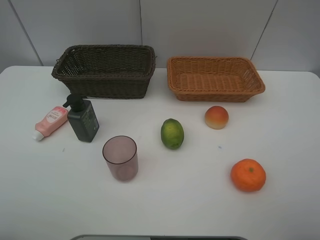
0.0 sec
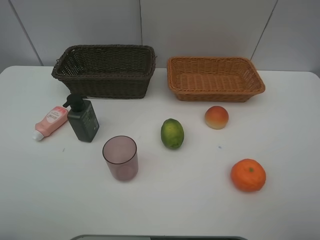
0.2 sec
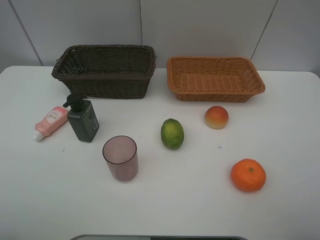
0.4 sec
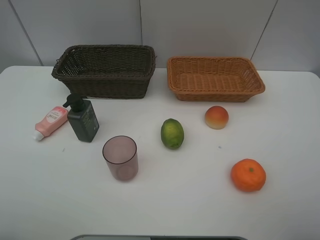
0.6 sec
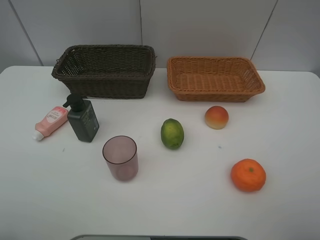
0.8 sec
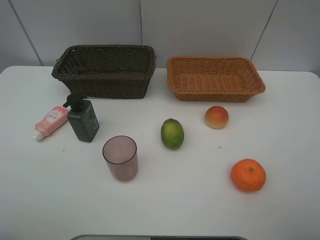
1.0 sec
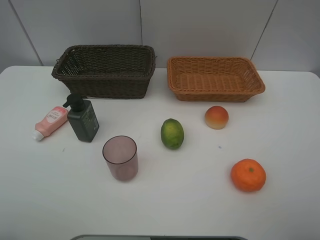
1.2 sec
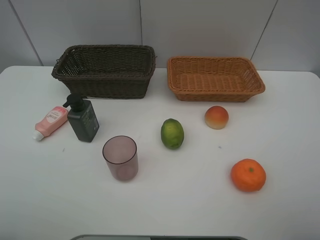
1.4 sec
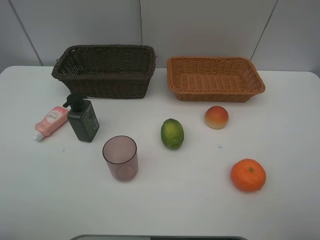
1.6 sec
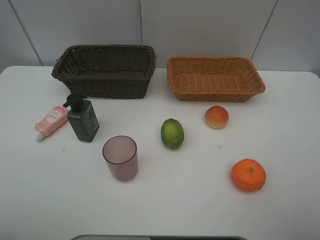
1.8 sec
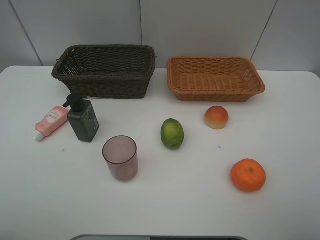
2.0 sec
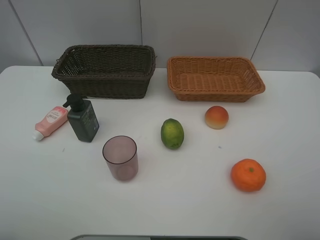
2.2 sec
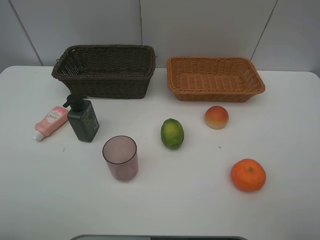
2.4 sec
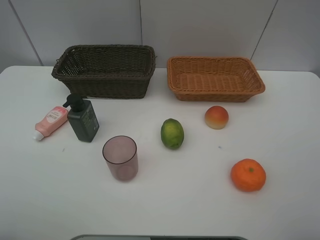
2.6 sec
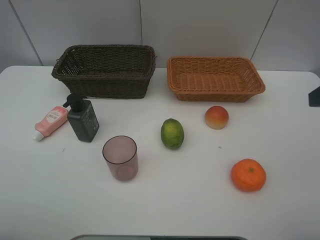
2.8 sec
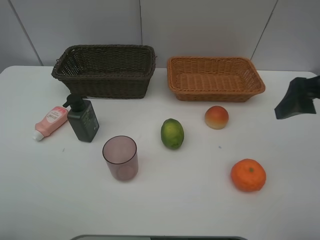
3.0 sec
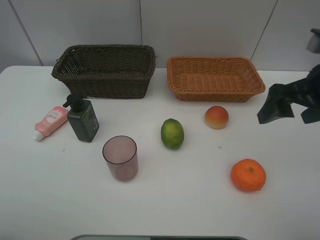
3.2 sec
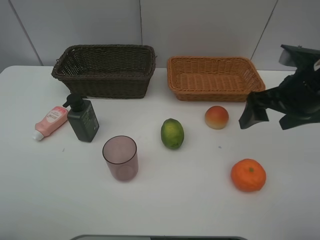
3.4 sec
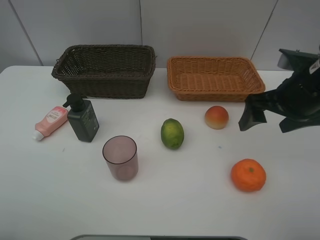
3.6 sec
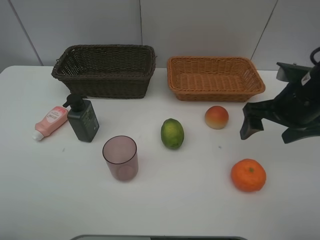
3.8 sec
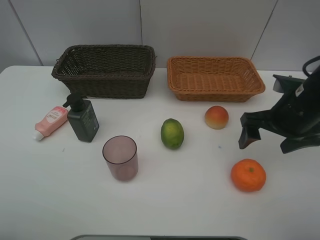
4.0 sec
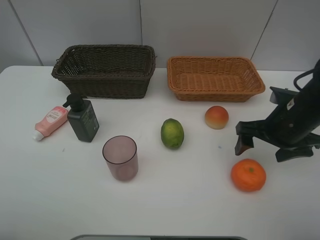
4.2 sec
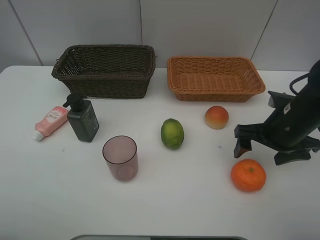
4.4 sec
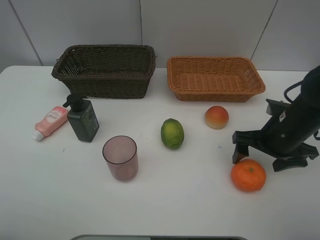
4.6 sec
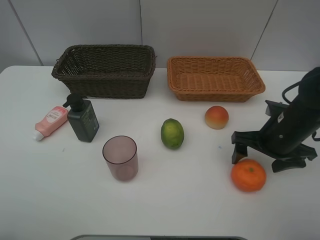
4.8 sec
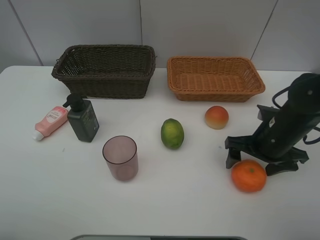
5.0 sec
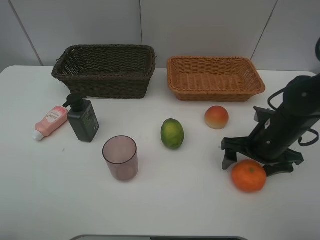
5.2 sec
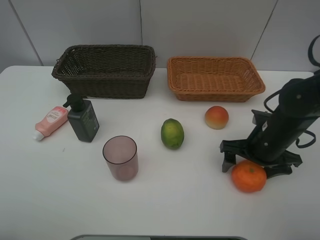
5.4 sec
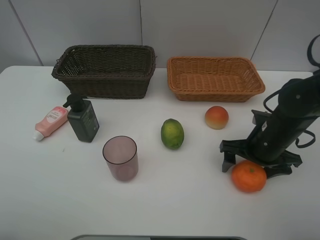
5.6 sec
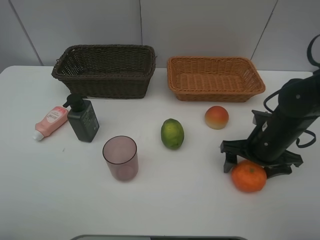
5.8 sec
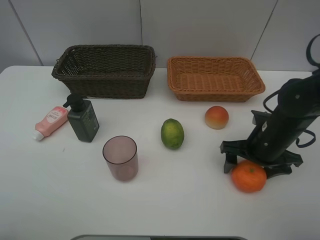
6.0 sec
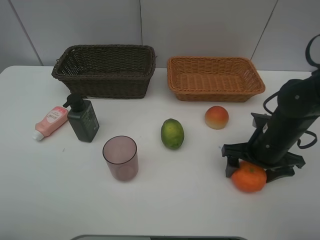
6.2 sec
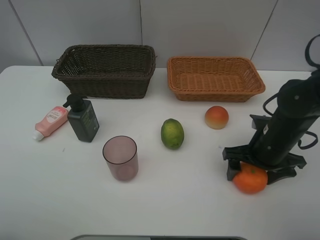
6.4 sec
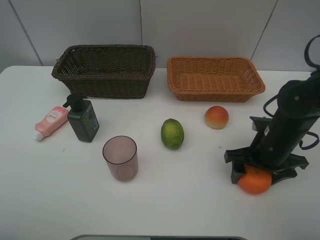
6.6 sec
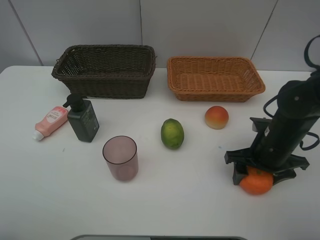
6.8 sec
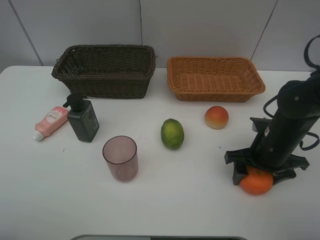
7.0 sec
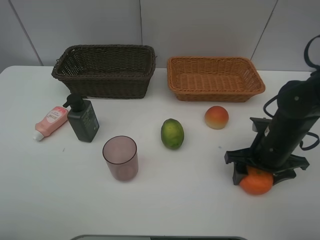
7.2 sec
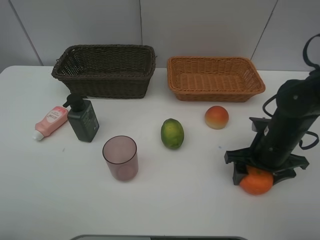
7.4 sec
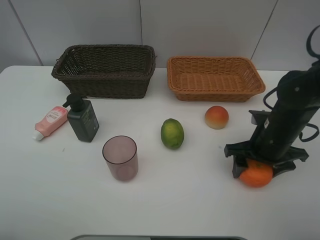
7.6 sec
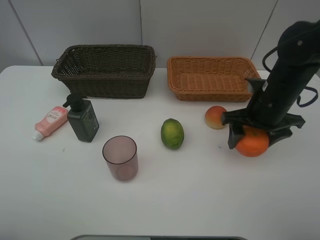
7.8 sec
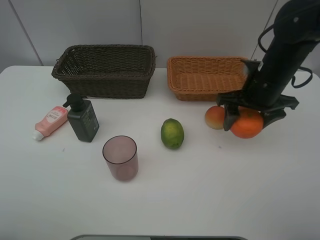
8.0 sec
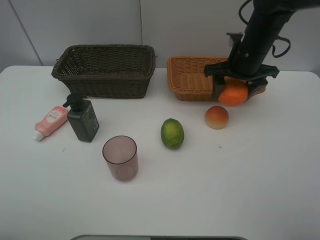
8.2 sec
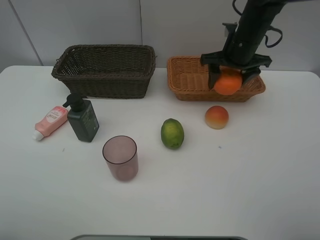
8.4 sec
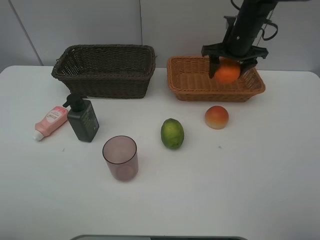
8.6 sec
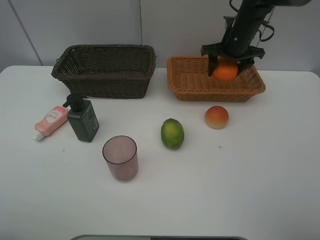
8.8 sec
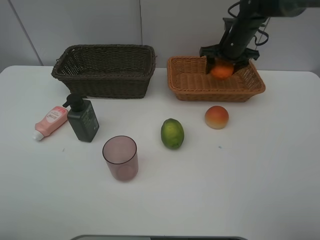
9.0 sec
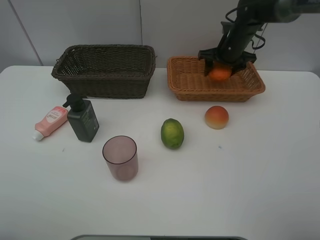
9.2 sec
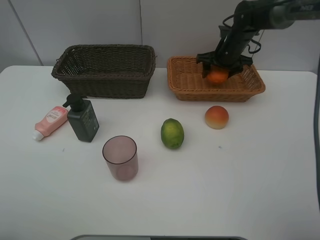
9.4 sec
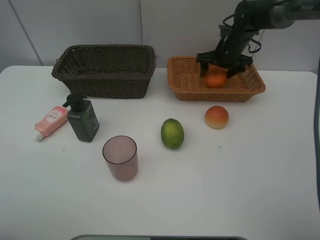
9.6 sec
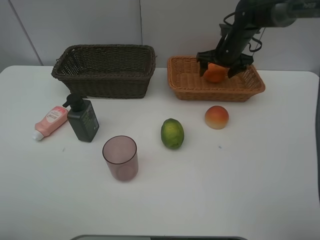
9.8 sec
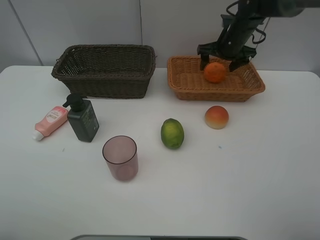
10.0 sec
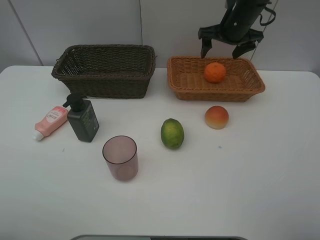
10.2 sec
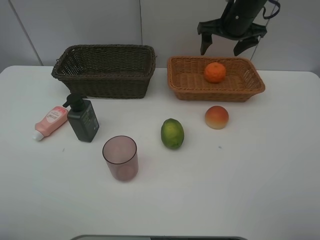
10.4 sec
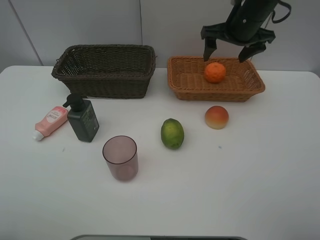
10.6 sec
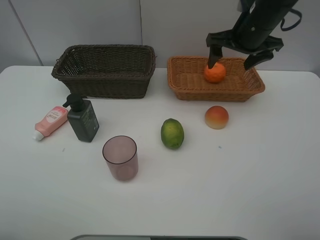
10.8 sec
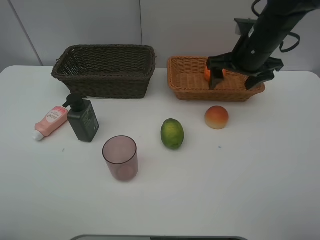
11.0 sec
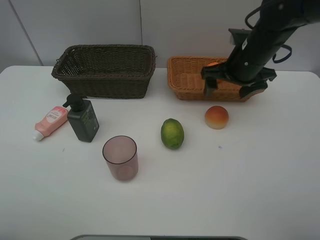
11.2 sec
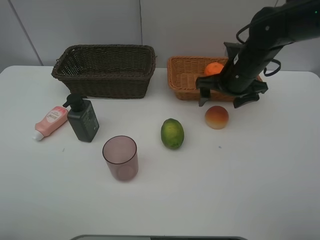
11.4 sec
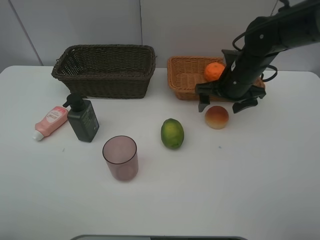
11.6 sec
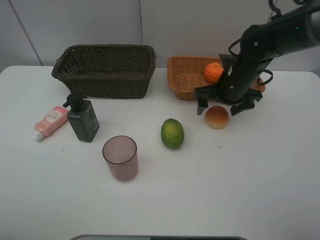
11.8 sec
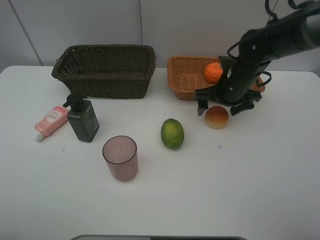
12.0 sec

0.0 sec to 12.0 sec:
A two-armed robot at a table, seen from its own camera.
Task of the whole recording: place multiple objects separately in different baskets.
0.0 sec to 1.6 sec: Neither gripper changes place.
1.6 sec to 3.0 sec: The right gripper is displaced forward by roughly 20 cm.
3.0 sec to 4.4 sec: The right gripper is displaced downward by about 15 cm.
4.4 sec to 6.0 sec: The grippers stay close to where they were, moving slightly.
6.0 sec to 7.6 sec: The right gripper closes its fingers.
7.6 sec to 9.0 sec: The right gripper goes roughly 25 cm forward.
9.0 sec to 10.4 sec: The right gripper moves upward, some 10 cm, and opens its fingers.
10.4 sec to 12.0 sec: The right gripper goes approximately 15 cm downward and backward.

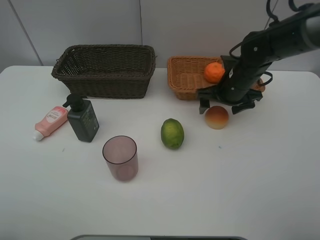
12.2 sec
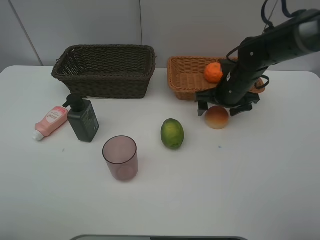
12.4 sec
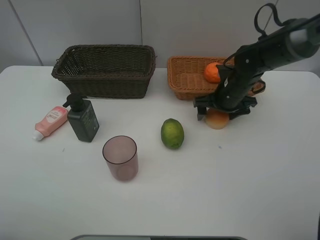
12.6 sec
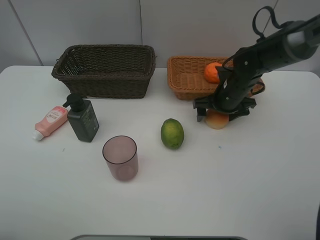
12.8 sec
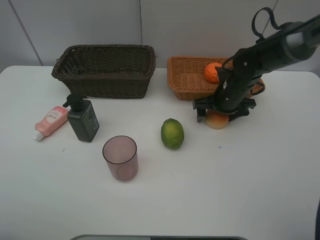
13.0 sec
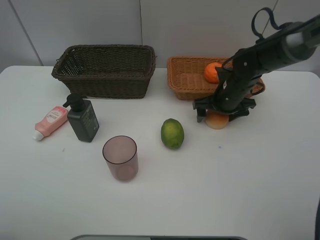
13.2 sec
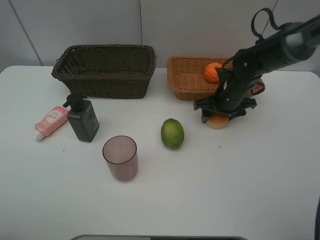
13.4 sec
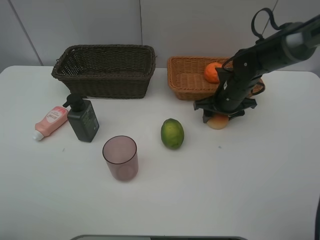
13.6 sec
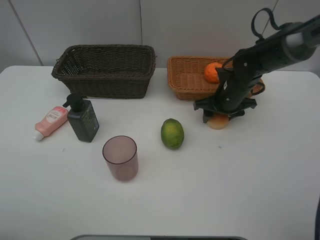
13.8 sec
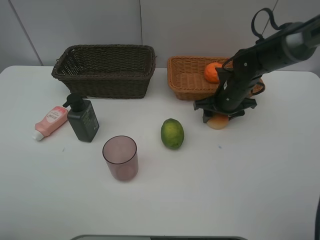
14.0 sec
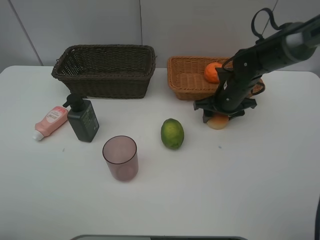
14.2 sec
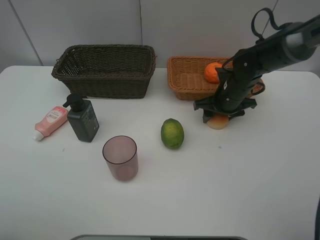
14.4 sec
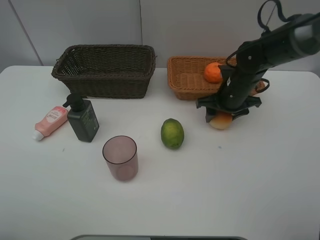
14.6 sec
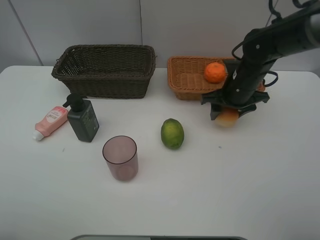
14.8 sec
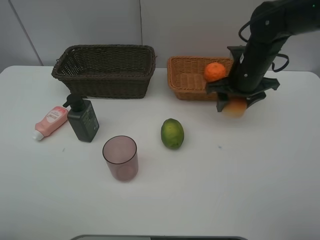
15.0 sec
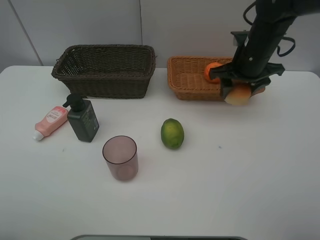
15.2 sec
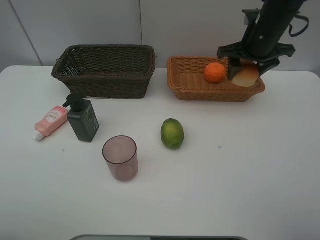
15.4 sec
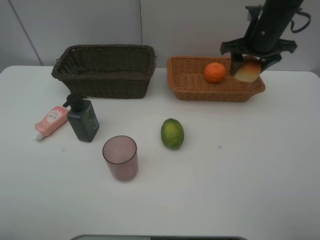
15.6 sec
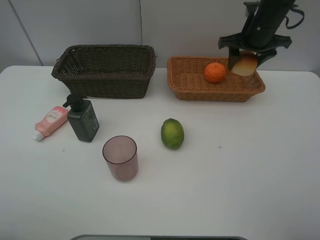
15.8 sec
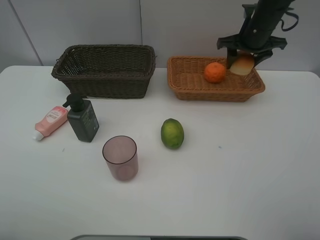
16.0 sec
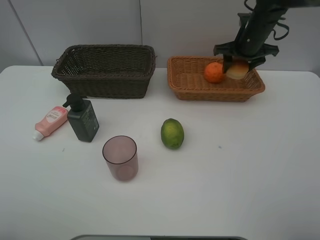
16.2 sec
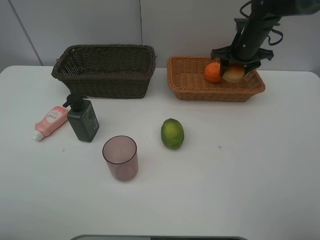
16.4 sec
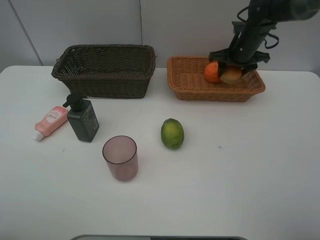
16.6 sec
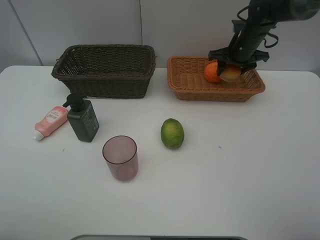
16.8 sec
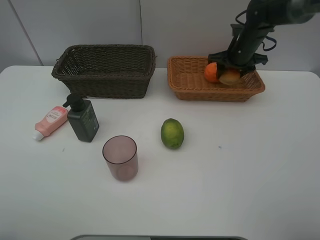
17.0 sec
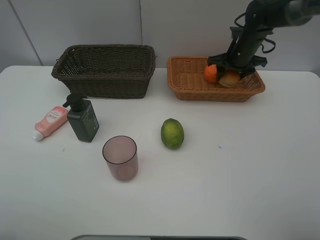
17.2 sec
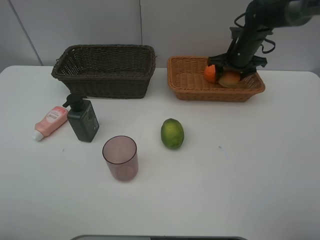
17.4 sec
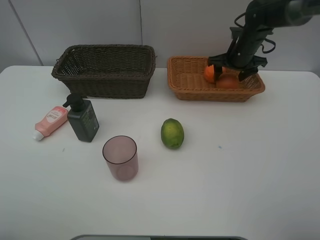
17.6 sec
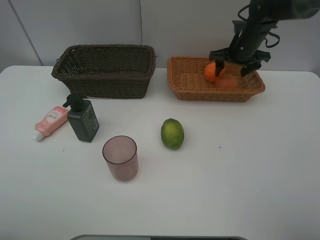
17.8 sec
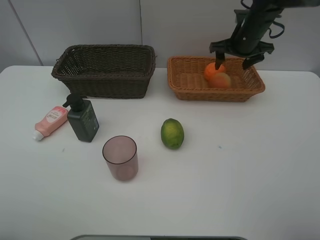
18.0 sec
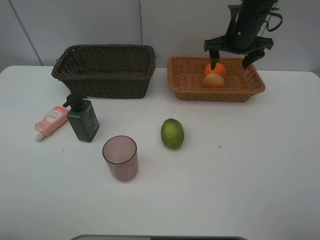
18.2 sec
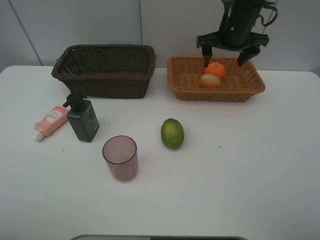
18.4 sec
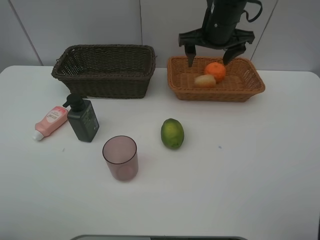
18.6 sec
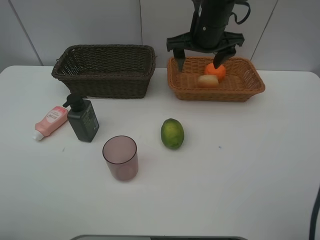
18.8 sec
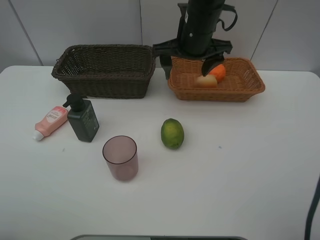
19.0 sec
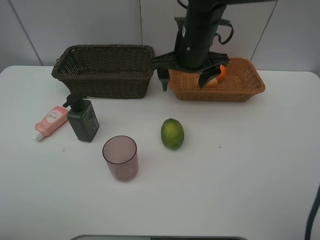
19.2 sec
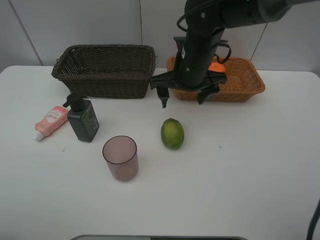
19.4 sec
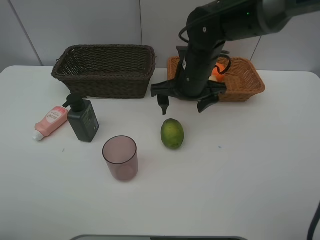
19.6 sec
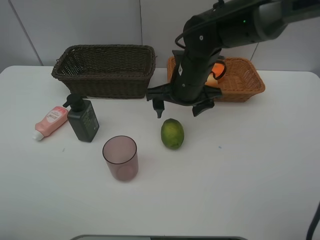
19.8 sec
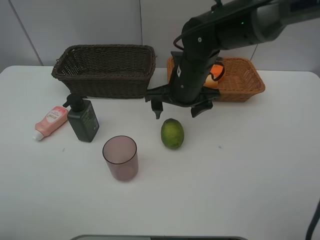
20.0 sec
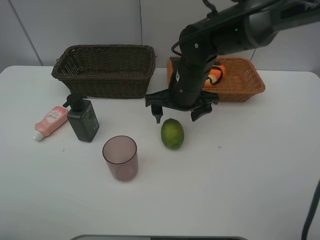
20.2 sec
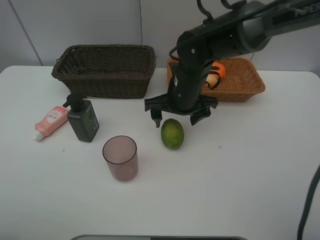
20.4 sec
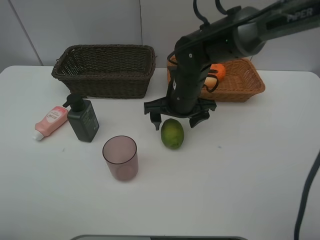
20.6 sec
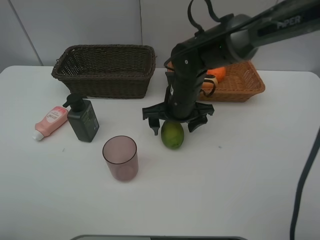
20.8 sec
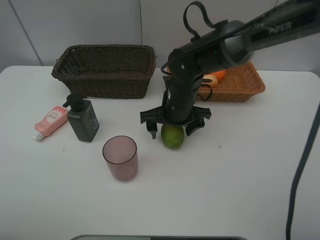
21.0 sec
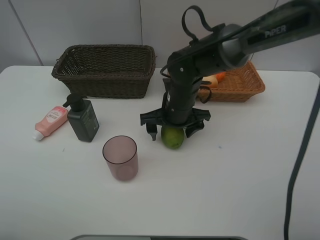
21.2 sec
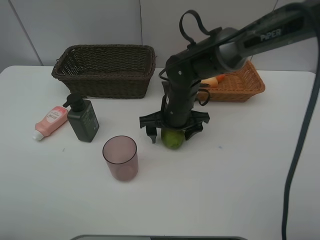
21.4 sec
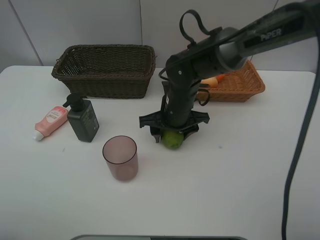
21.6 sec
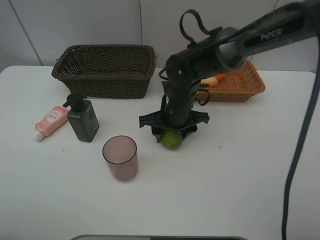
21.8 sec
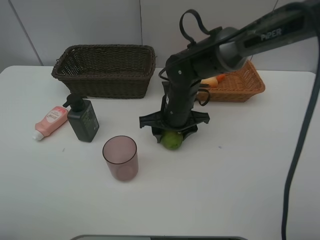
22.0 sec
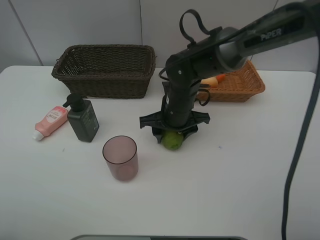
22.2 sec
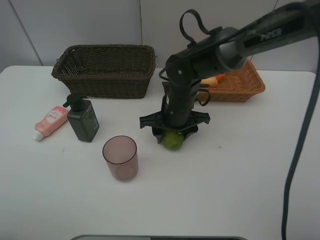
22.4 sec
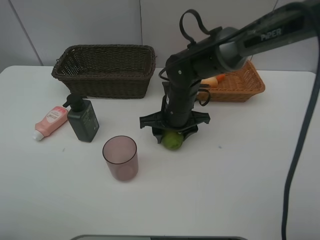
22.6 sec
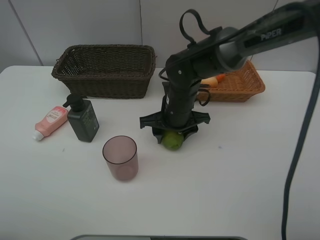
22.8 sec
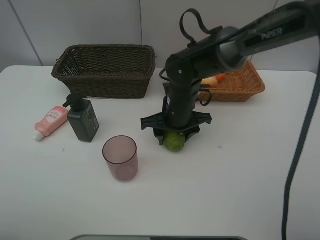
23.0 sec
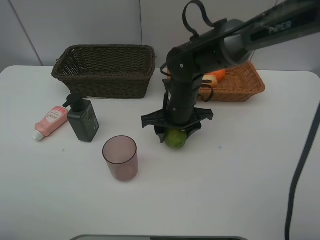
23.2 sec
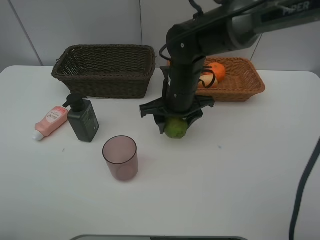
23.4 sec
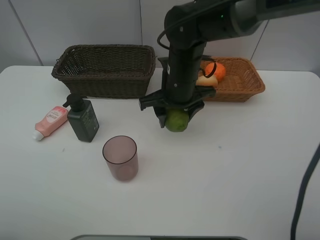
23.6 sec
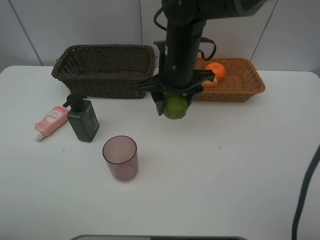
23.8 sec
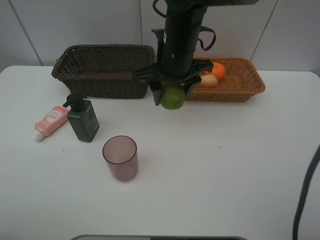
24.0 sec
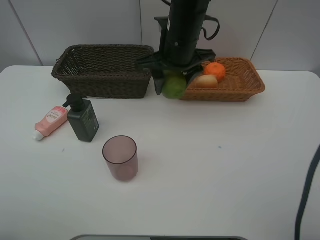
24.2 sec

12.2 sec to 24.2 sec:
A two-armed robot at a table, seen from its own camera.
Task of the whole recording: place multiple objects separately in different baskets.
12.2 sec to 13.8 sec: The right gripper closes up.
13.8 sec to 15.2 sec: The right gripper travels upward by approximately 10 cm.
15.2 sec to 16.6 sec: The right gripper is displaced forward by roughly 10 cm.
16.6 sec to 18.2 sec: The right gripper shifts approximately 5 cm upward, and opens its fingers.
18.2 sec to 19.8 sec: The right gripper is displaced to the left, backward and downward by some 20 cm.
19.8 sec to 21.2 sec: The right gripper heads downward, covering some 5 cm.
21.2 sec to 22.6 sec: The right gripper closes.
22.6 sec to 24.2 sec: The right gripper travels upward by roughly 15 cm.
